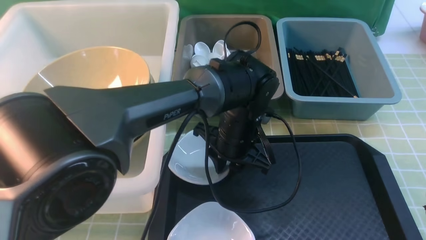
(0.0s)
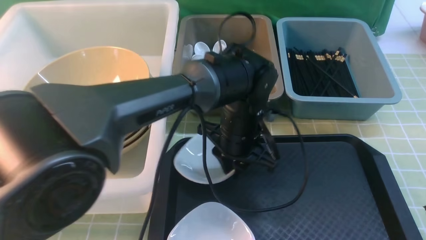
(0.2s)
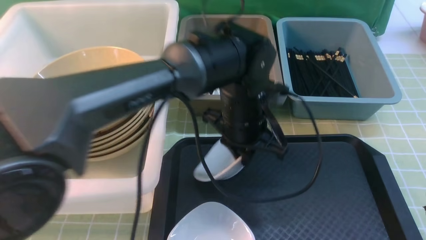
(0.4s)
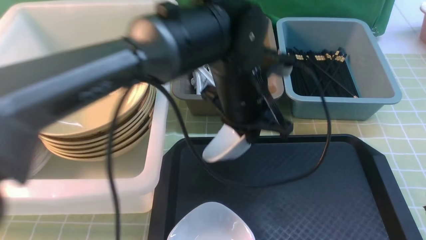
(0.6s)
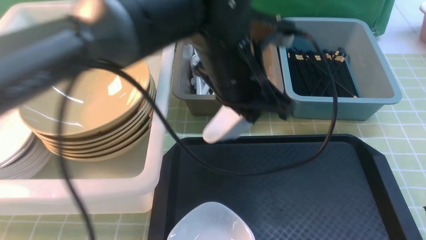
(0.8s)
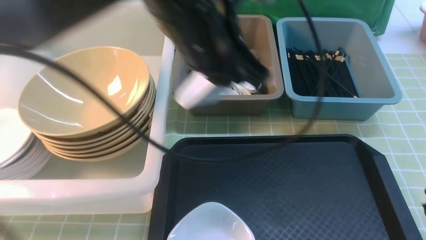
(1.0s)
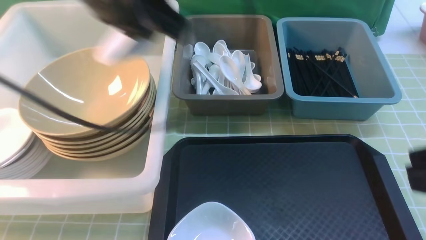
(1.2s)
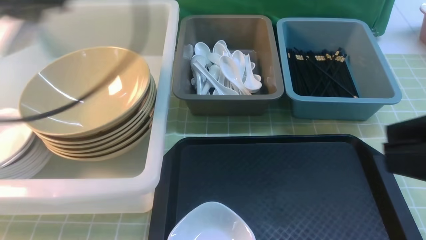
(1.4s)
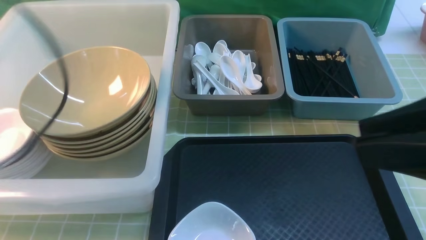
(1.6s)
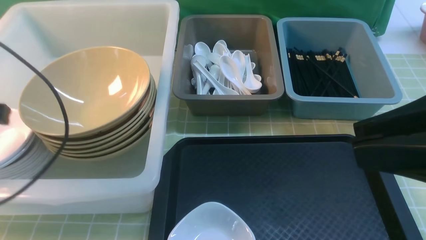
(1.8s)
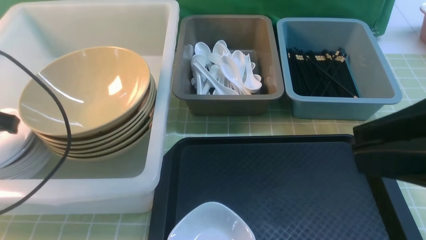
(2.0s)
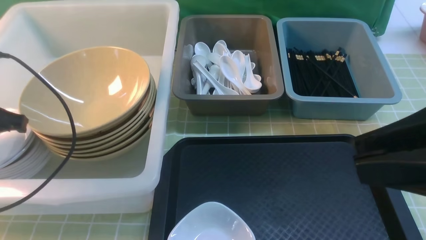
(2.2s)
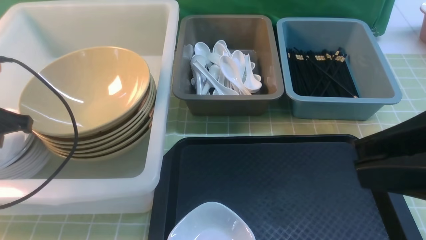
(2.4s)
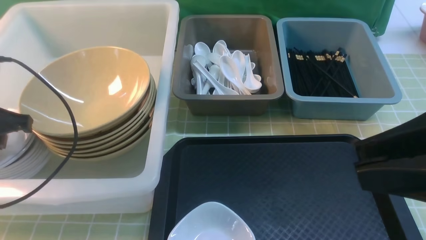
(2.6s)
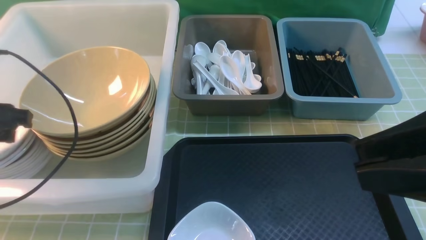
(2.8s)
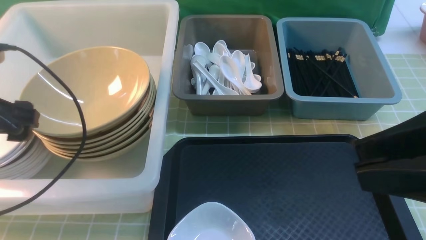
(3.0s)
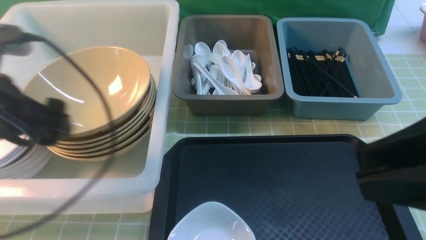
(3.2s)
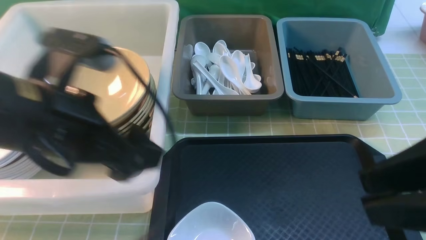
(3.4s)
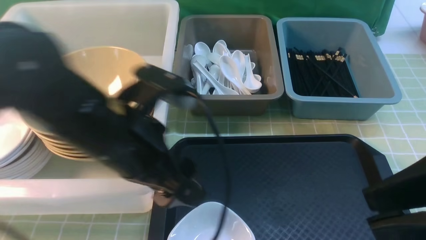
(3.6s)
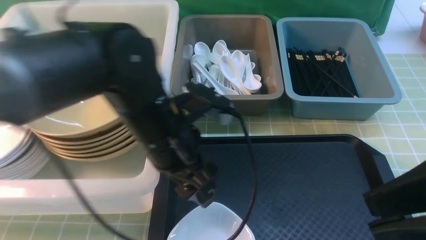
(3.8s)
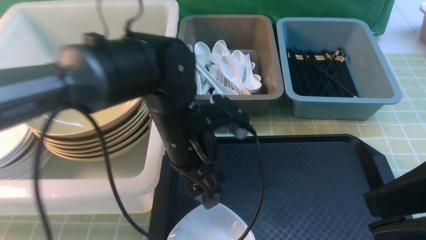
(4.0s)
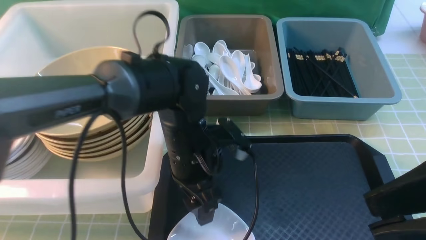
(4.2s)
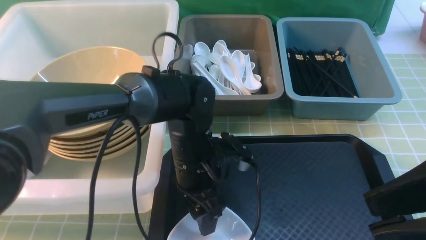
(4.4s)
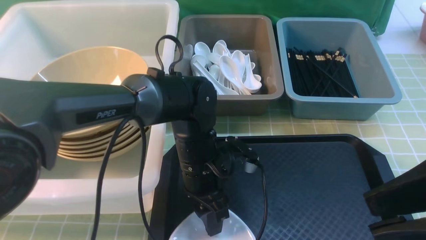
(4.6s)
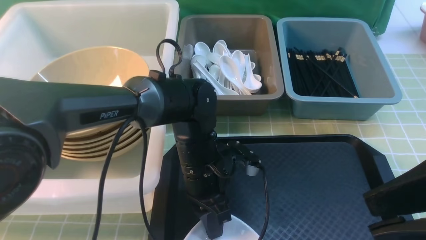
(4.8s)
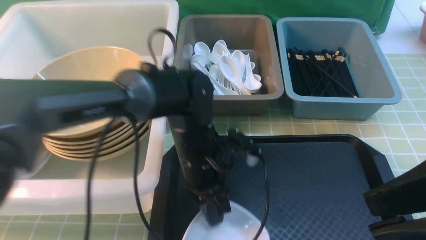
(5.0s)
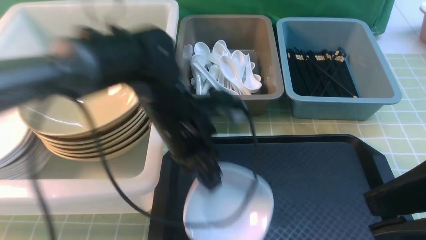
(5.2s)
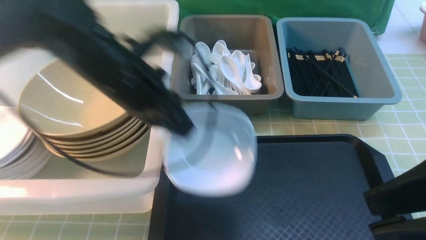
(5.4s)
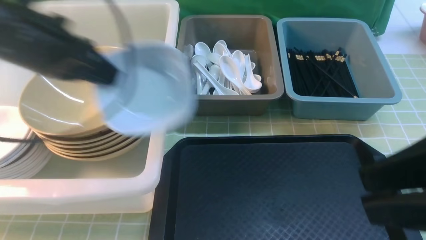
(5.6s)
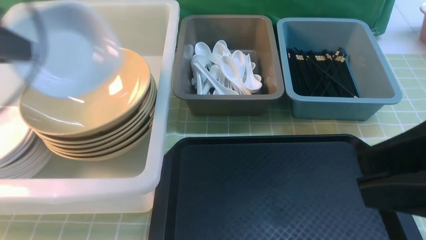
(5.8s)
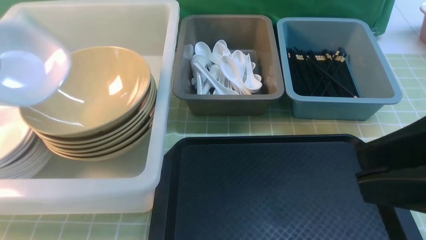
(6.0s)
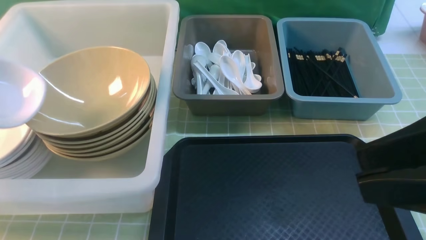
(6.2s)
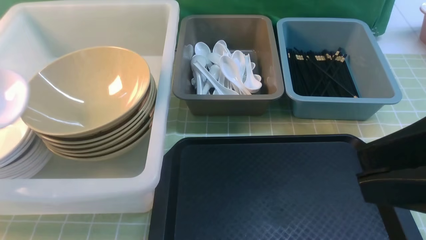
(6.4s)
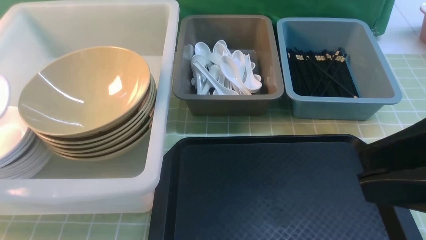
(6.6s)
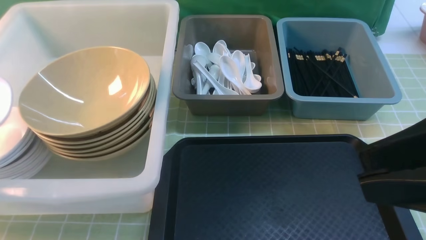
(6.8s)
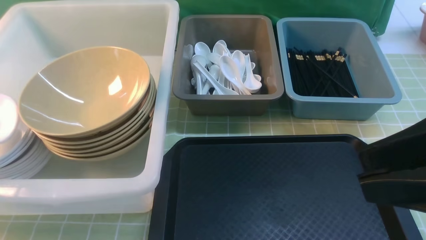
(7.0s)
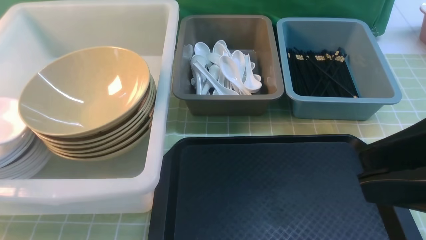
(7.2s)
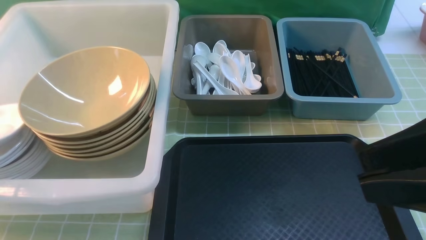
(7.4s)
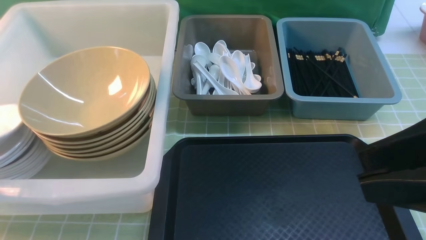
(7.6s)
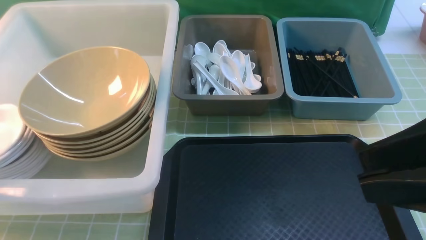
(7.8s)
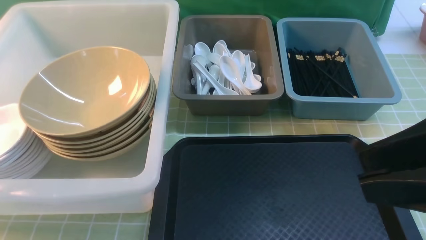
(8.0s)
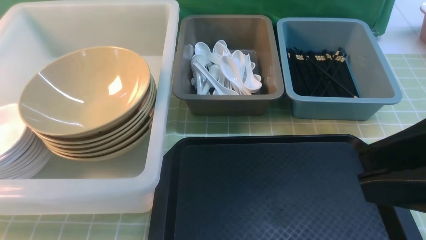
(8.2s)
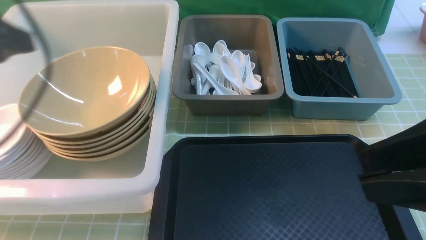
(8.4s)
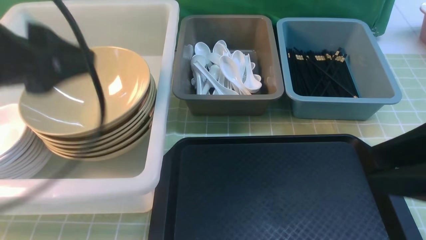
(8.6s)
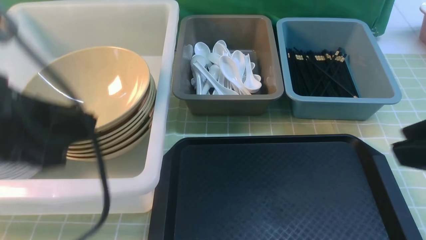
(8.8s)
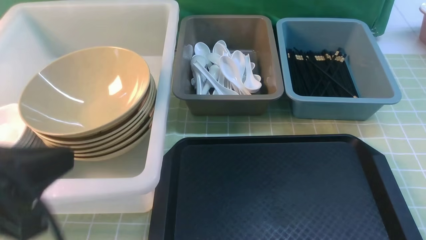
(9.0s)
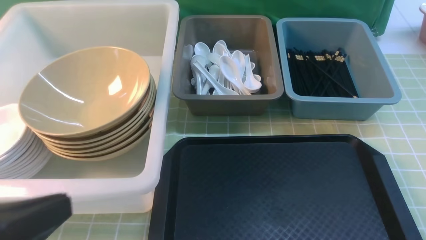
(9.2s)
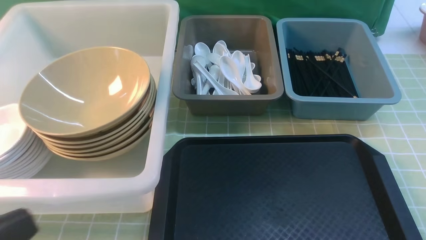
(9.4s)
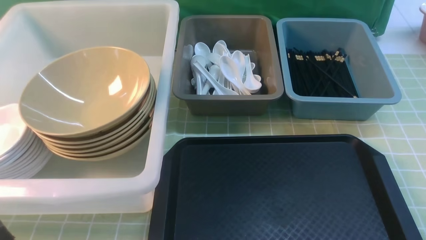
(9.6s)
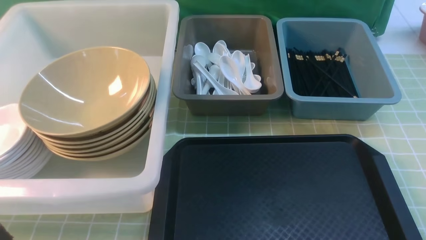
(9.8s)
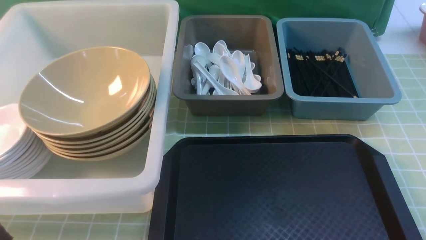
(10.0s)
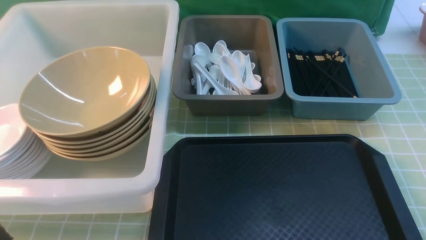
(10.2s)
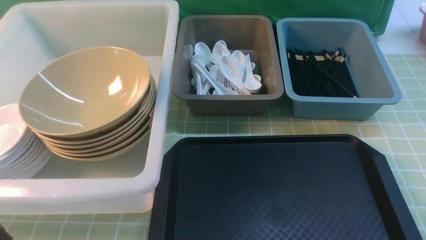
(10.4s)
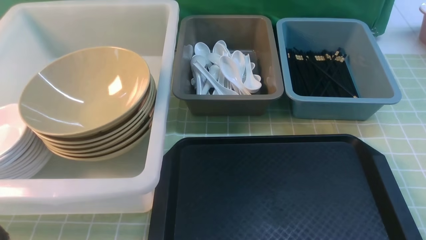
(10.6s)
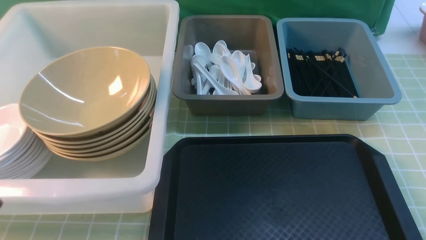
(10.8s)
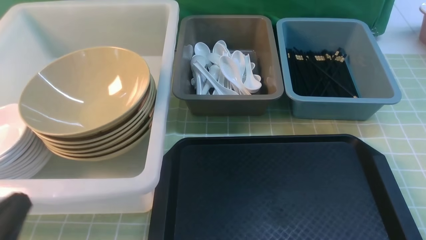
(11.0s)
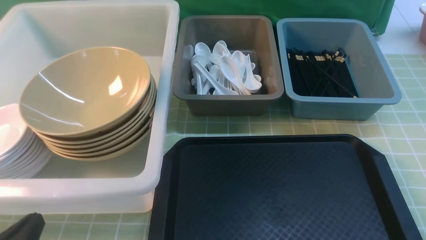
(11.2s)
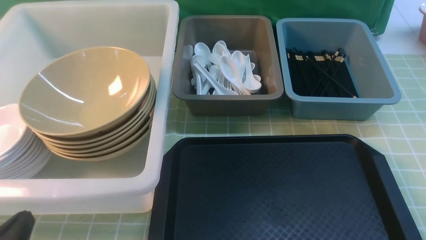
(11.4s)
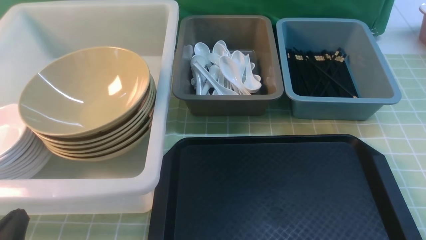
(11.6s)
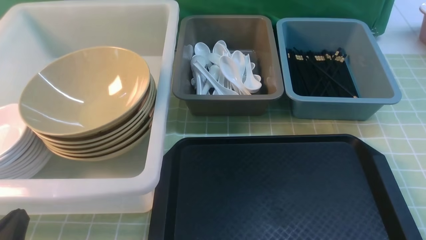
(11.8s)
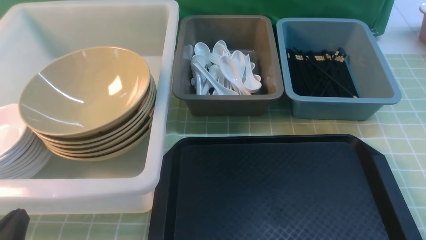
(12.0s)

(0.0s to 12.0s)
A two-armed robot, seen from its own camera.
Task of the whole recording: on green table put chopsticks spoon bowls plates into blue grey white boxes.
Step, 0.2s - 2.6s: use the left arm to put the plate into the large storage box on the left.
Step, 2.8s - 5.0s: use the left arm to grab the plate.
0.0s - 1.6s: The left gripper travels to the left and upward by about 35 cm.
1.6s - 3.0s: The left gripper shifts about 5 cm downward, and opens its fingers.
3.0s - 4.4s: The left gripper travels to the right and downward by approximately 30 cm.
4.4s - 6.0s: The left gripper shifts about 35 cm to the left and upward, and closes its fingers.
6.0s - 7.6s: The left gripper is displaced downward by about 10 cm, and opens its fingers.
7.6s - 9.0s: The left gripper heads to the right, backward and upward, covering about 20 cm, and closes. The right gripper heads to the right, covering roughly 5 cm.
9.0s - 10.4s: The left gripper travels backward by about 10 cm.
10.4s - 12.0s: The left gripper moves downward and forward, roughly 15 cm.

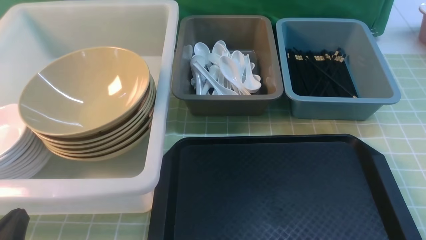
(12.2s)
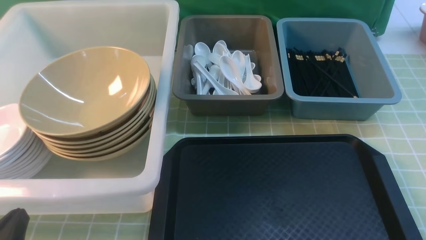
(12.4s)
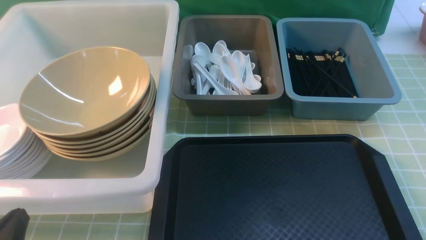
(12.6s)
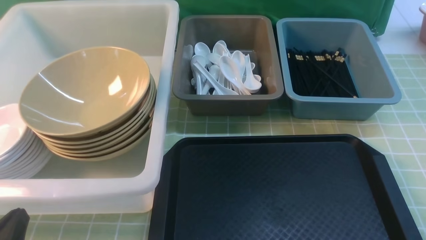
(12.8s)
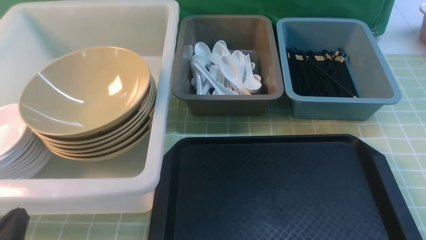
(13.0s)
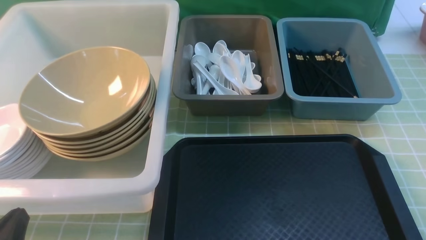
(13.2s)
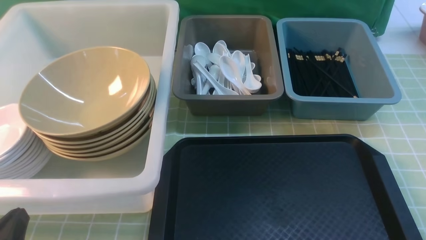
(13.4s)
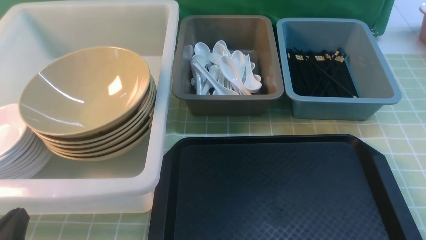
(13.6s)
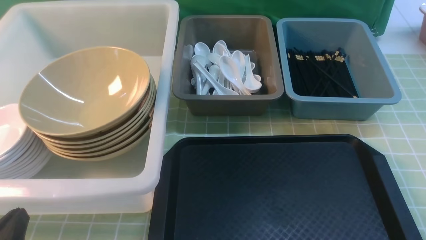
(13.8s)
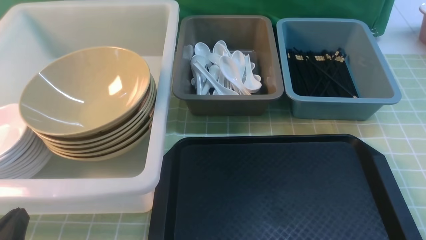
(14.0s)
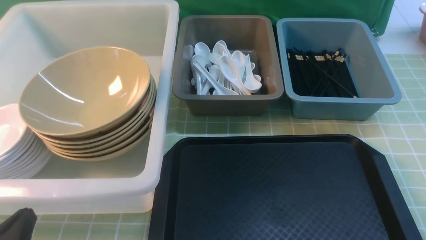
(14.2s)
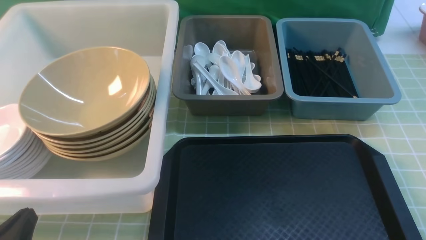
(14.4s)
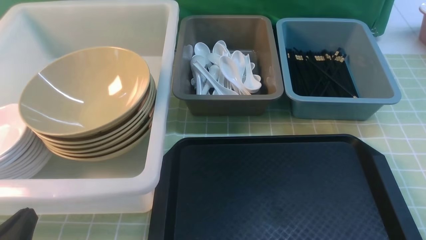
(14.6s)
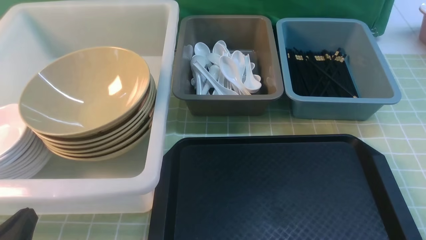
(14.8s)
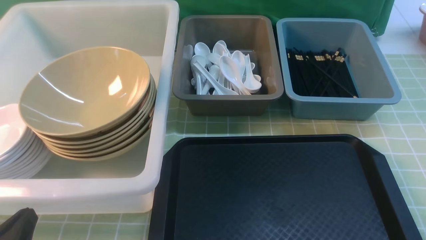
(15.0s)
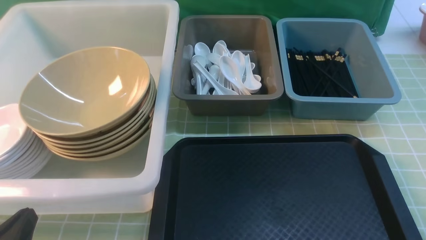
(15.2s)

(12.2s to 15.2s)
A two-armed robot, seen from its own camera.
Task of the whole recording: on green table put chopsticks spoon bowls plates into blue grey white boxes.
13.8s - 15.2s: Neither gripper changes place.

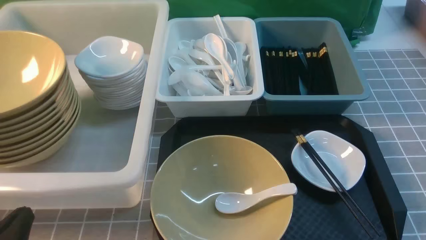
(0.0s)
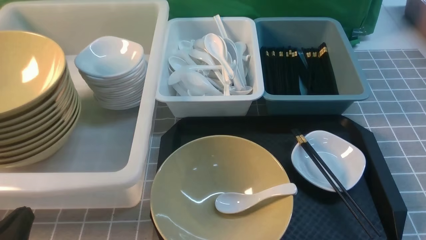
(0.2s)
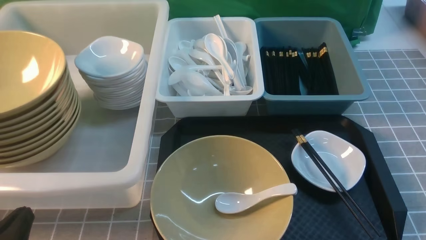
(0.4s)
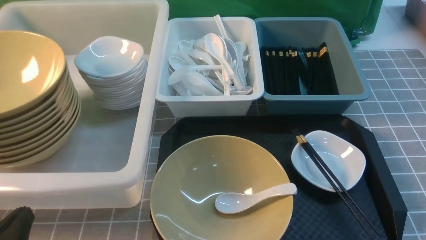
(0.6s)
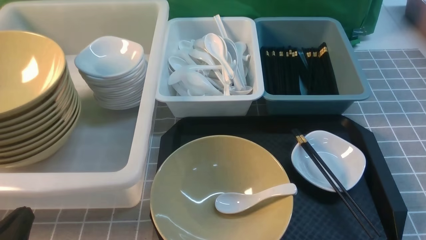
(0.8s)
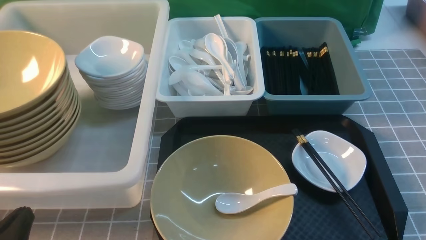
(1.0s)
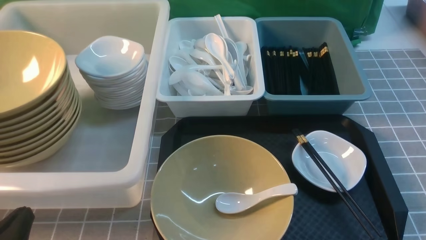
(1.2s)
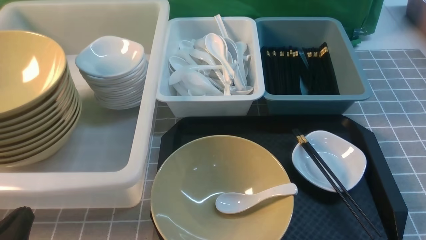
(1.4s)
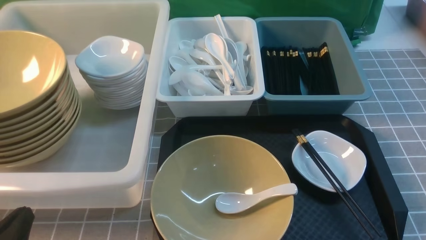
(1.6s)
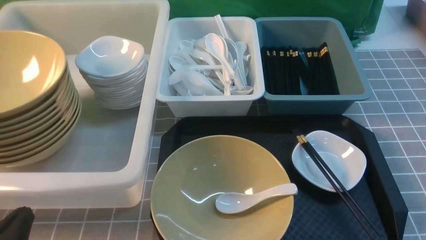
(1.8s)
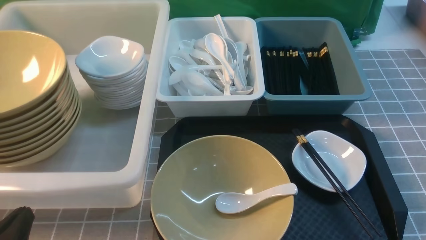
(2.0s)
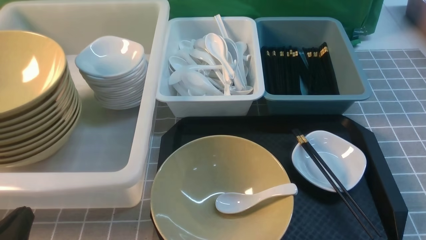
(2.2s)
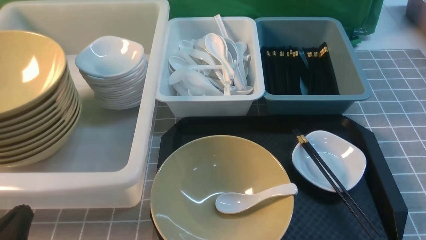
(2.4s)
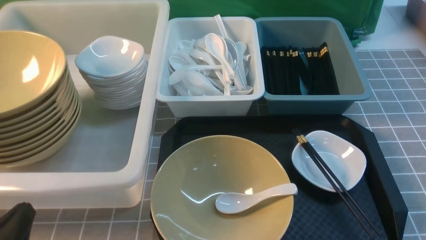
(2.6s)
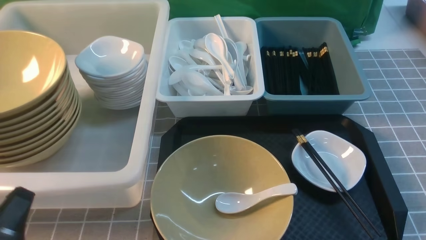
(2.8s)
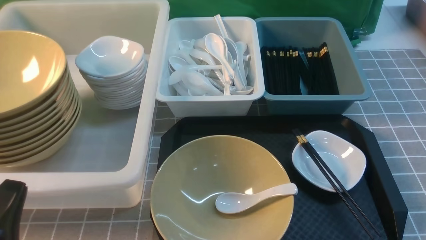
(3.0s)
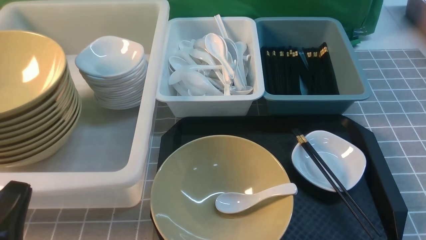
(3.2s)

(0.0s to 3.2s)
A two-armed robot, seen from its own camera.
Task of the whole recording: on grey table put chopsticks spoon bowls plates into blue grey white boxes.
0.0s - 1.6s: Both grippers stay about where they are.
